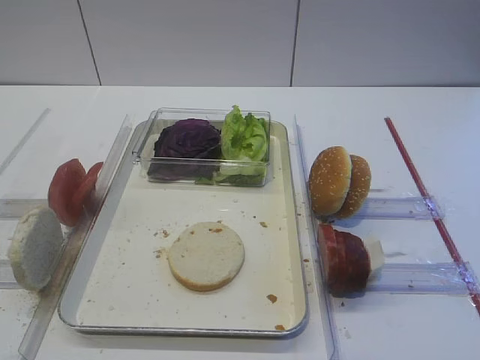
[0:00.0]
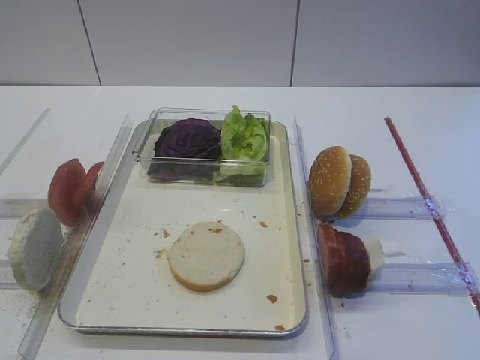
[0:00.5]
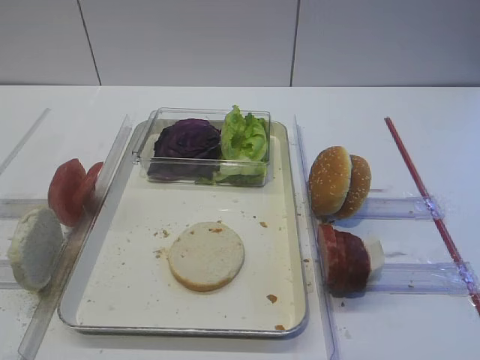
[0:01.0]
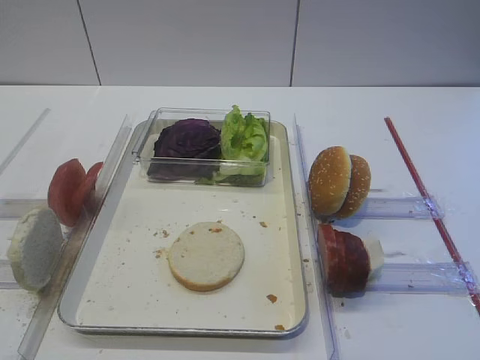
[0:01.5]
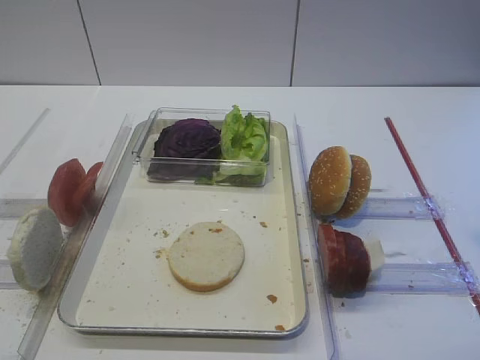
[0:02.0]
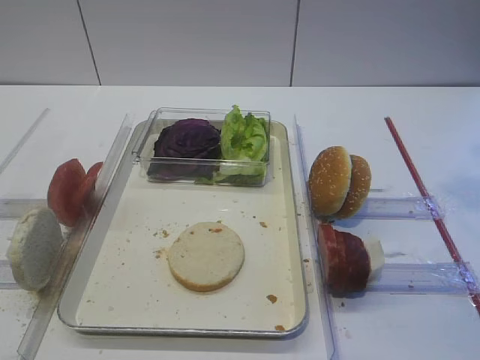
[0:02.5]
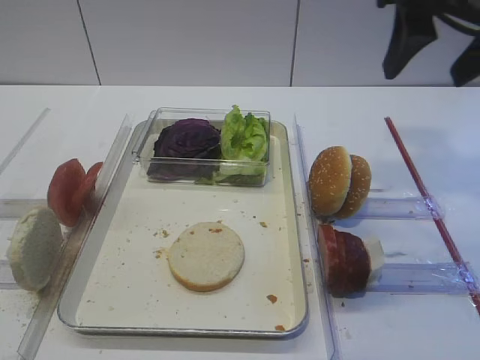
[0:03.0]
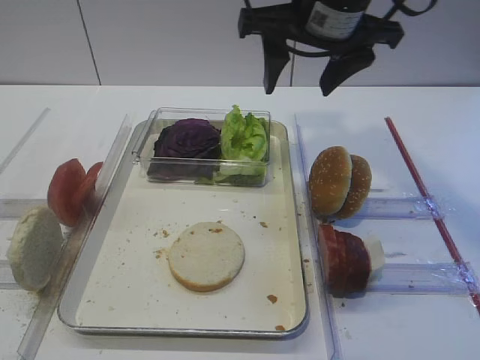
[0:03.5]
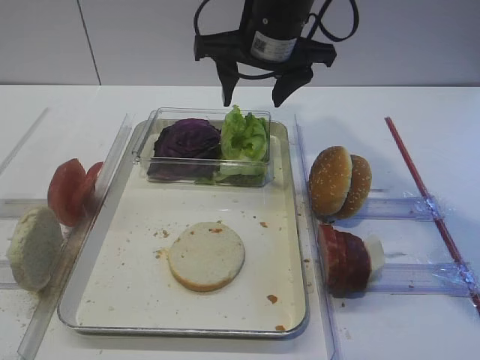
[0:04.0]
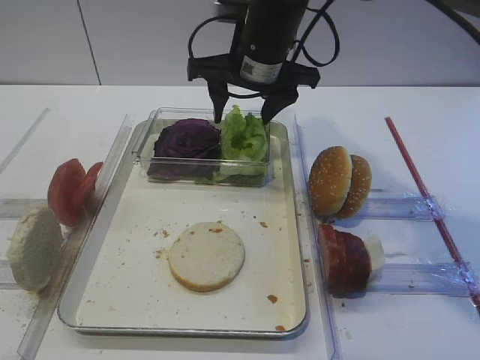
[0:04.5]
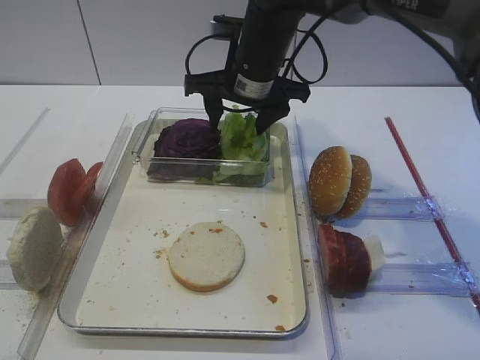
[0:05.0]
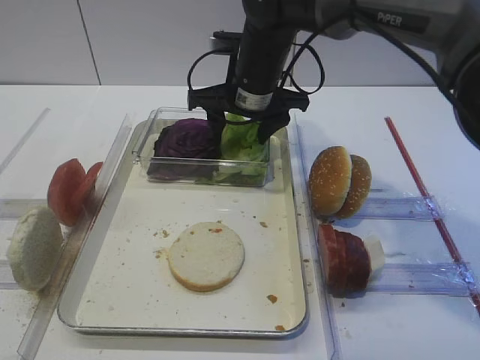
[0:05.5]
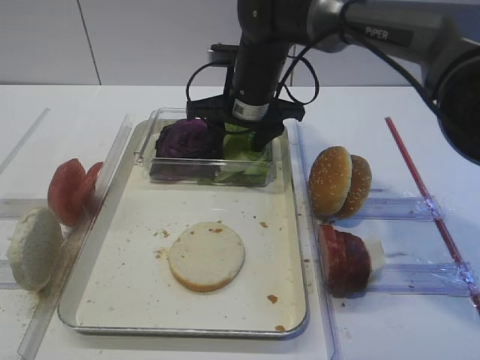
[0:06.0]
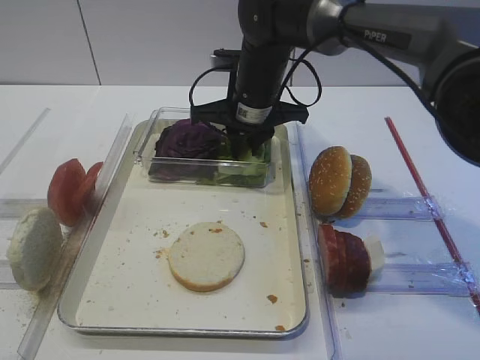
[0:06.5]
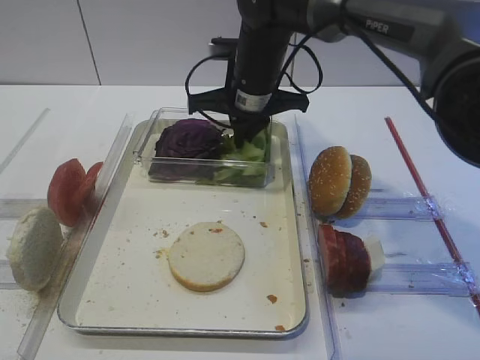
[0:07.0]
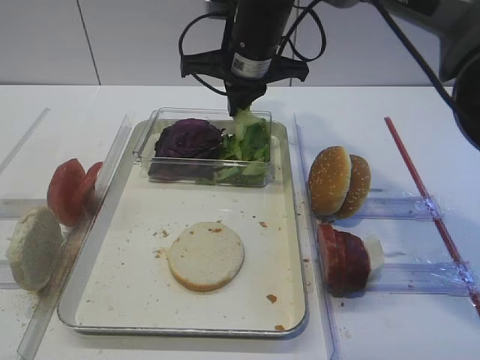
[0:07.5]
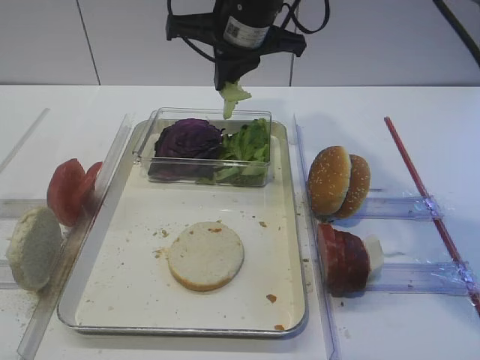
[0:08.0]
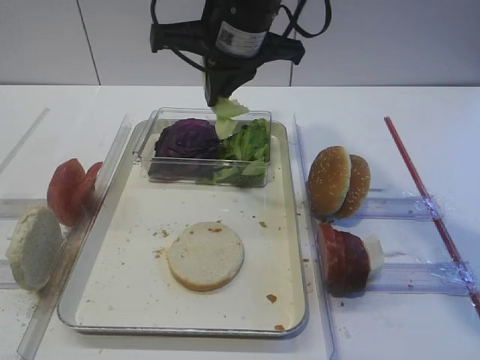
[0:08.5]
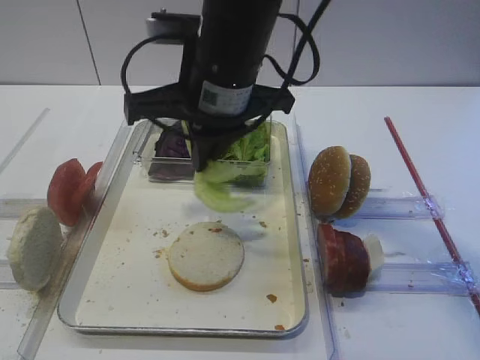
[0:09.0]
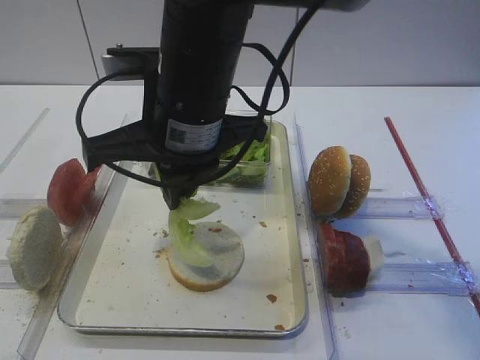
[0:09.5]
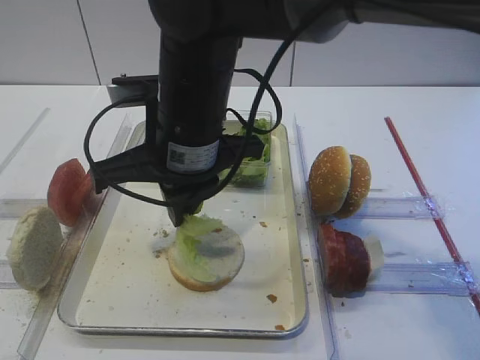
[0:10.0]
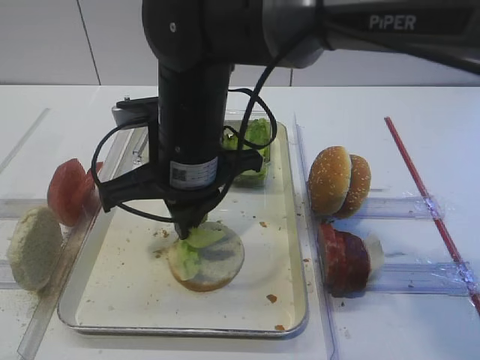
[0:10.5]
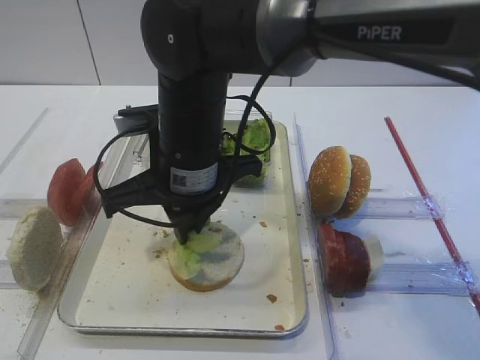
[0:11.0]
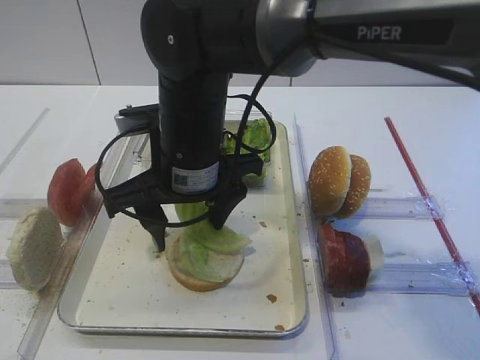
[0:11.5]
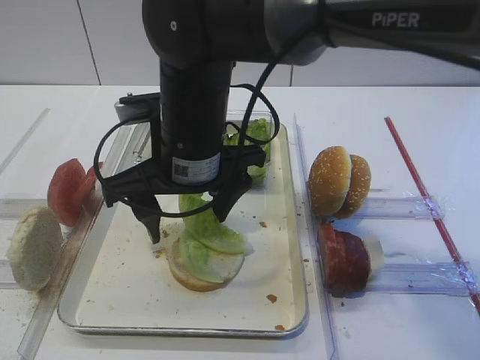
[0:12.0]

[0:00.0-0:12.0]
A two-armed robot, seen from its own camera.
Step, 0:00.0 to 0:07.5: Pick up the lettuce leaf with the right gripper.
0:02.0 to 0:04.0: The right gripper moves forward and to the left, about 35 cm.
0:04.0 to 0:06.0: The right gripper shifts roughly 10 cm downward.
0:06.0 to 0:08.0: The right gripper goes roughly 10 cm upward, and closes up.
0:08.0 to 0:10.0: The right gripper moves backward and to the left, roughly 15 cm.
0:10.0 to 0:12.0: The right gripper opens its fingers.

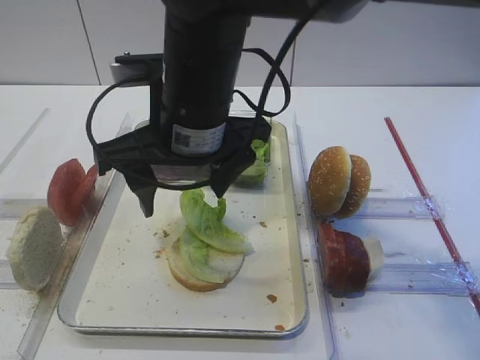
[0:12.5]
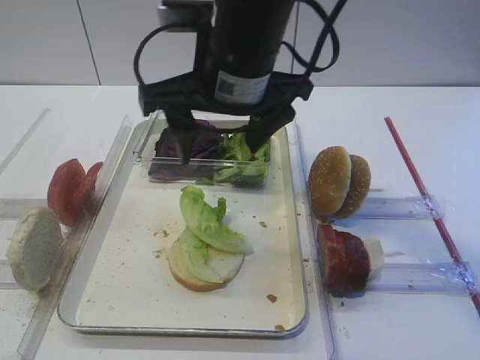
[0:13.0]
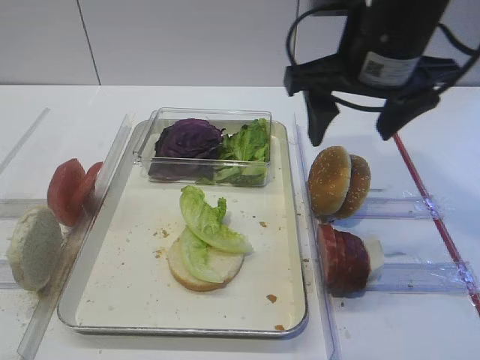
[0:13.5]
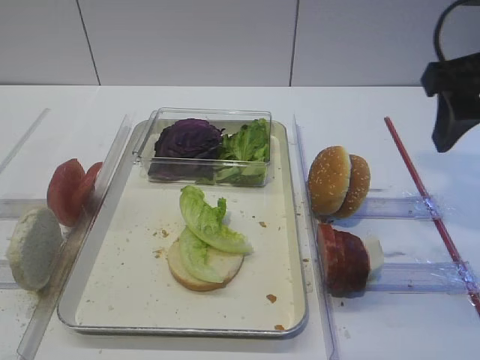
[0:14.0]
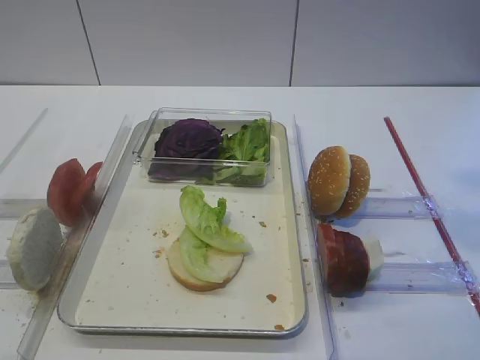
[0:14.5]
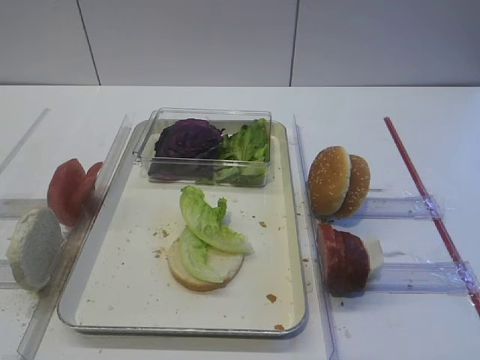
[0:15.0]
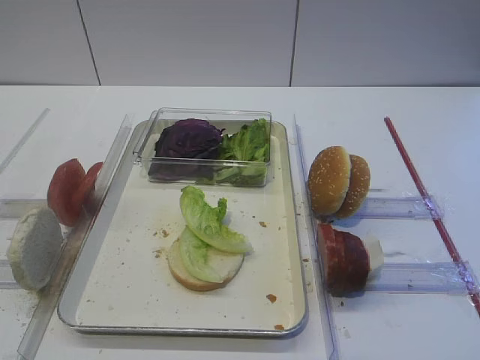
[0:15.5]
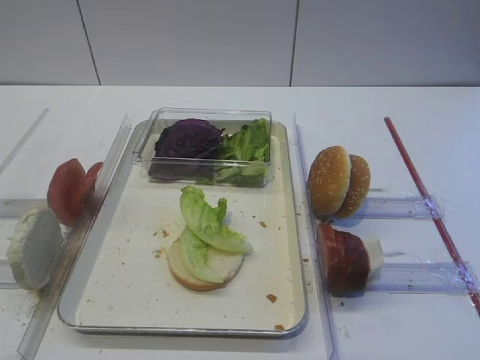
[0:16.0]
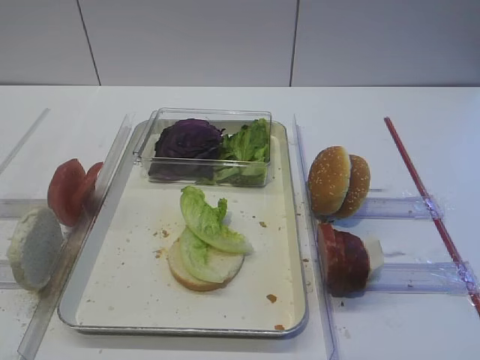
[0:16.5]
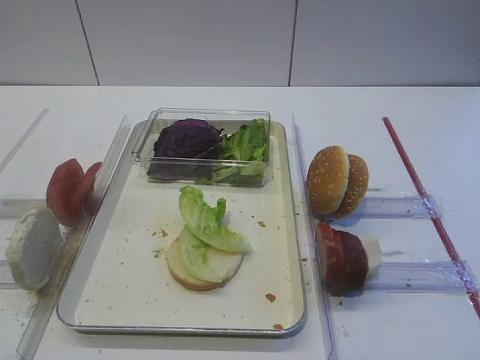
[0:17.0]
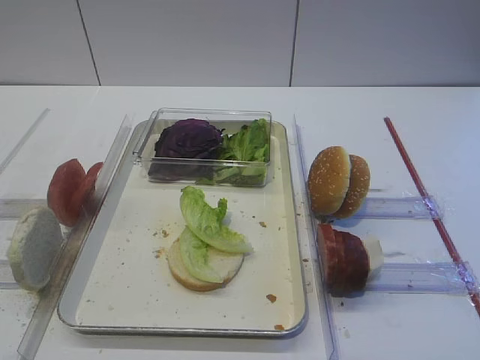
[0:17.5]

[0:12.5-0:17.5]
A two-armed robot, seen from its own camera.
0:12.5 to 0:15.0: The right gripper goes about 35 cm to the right and backward.

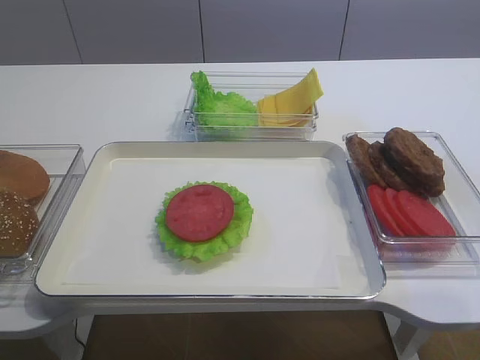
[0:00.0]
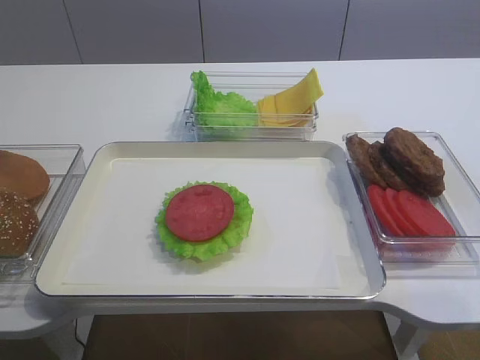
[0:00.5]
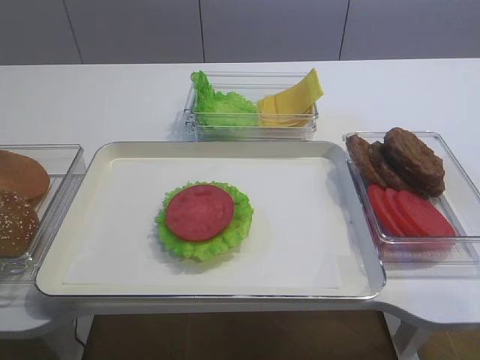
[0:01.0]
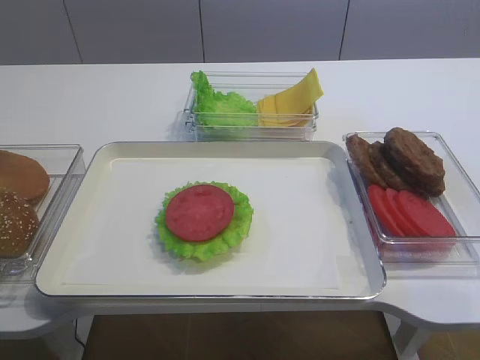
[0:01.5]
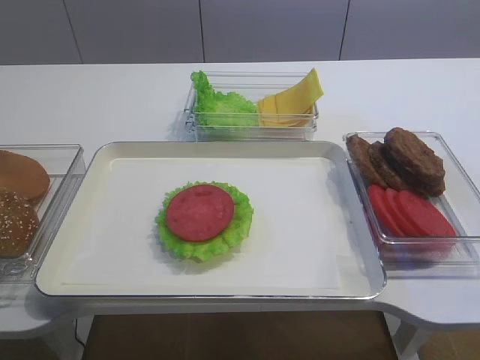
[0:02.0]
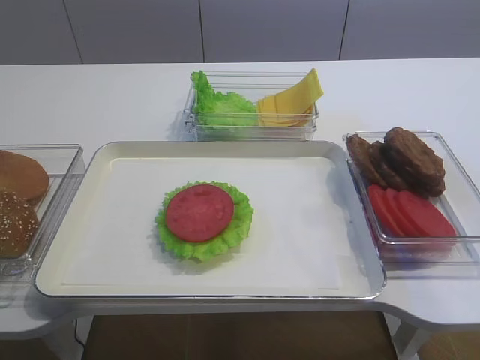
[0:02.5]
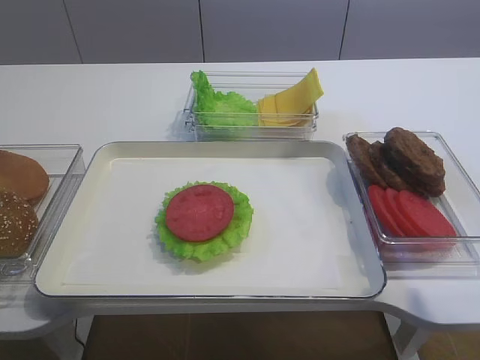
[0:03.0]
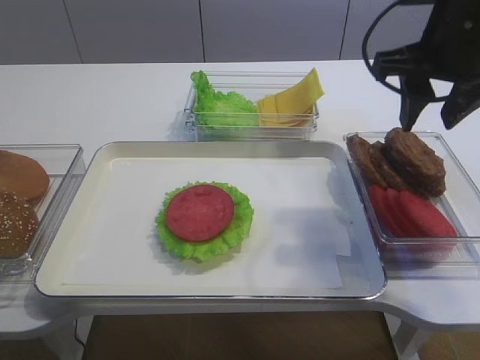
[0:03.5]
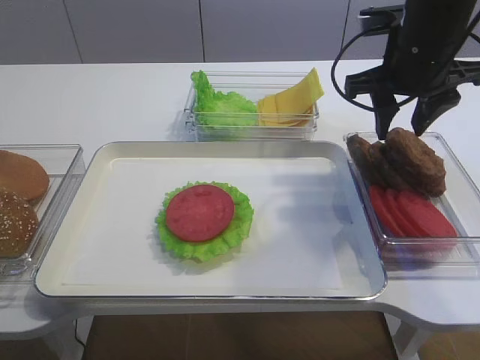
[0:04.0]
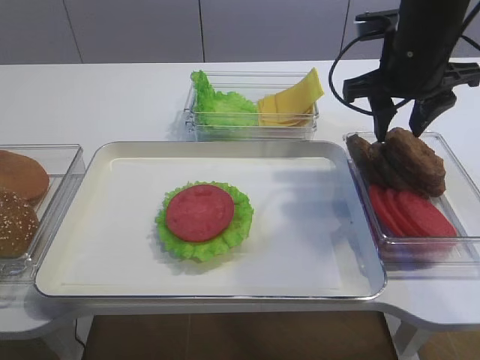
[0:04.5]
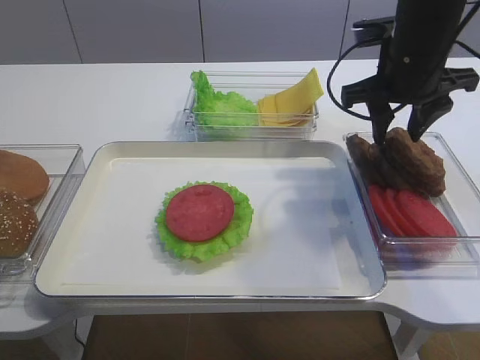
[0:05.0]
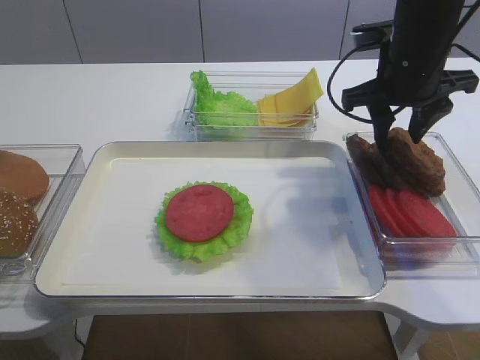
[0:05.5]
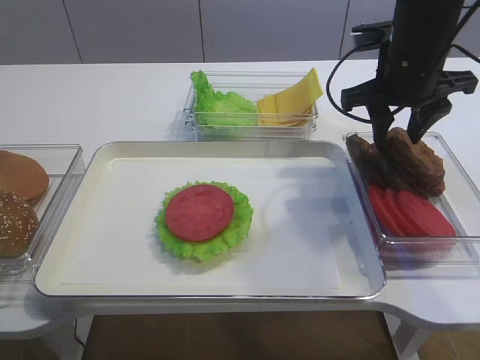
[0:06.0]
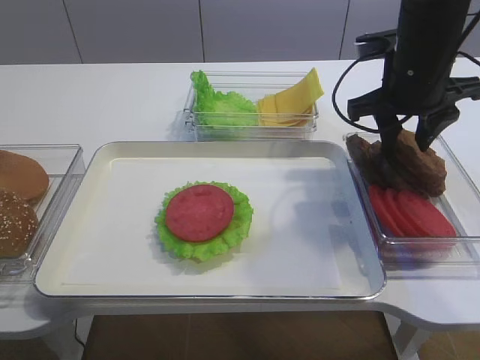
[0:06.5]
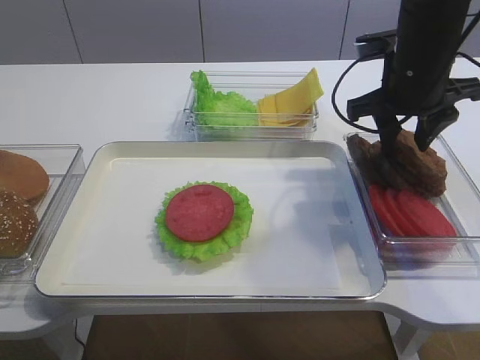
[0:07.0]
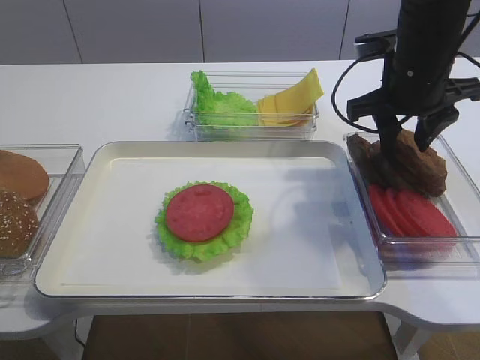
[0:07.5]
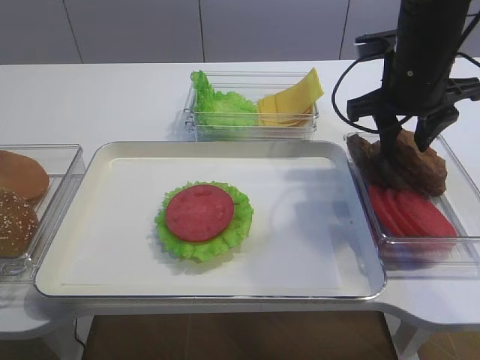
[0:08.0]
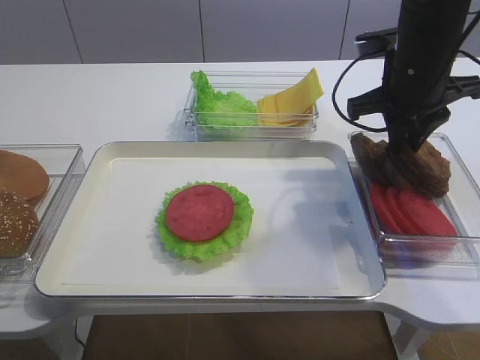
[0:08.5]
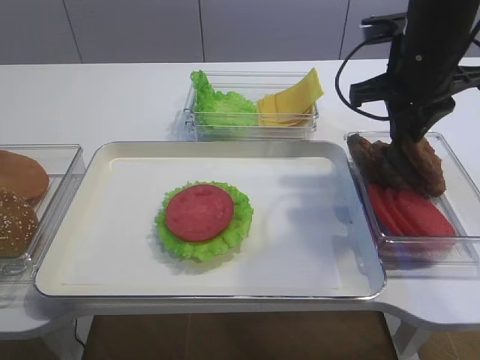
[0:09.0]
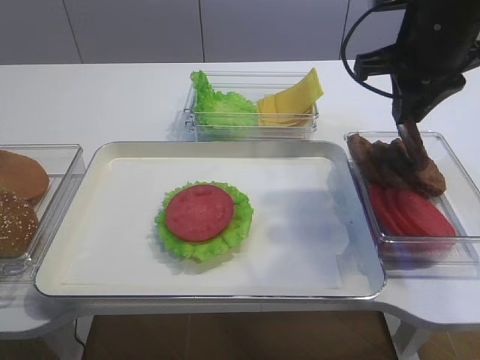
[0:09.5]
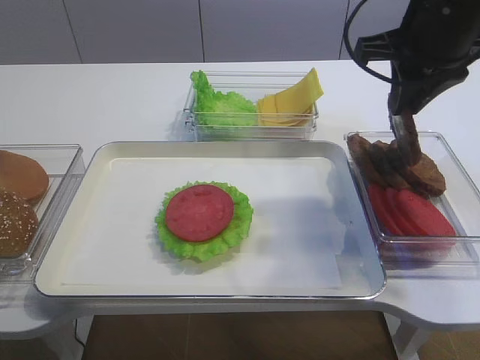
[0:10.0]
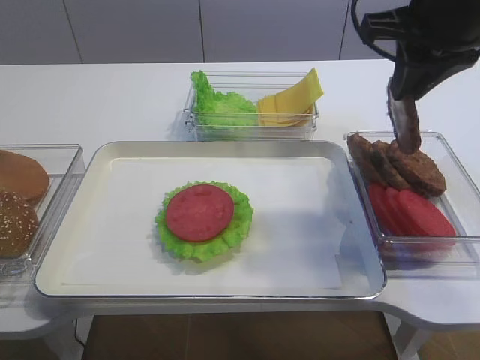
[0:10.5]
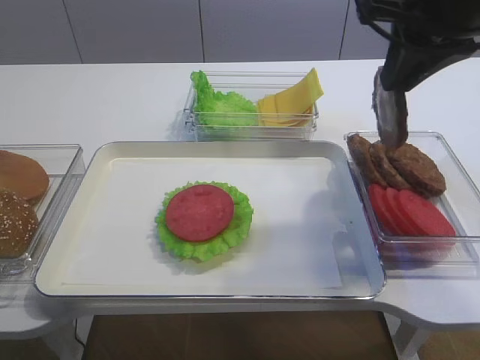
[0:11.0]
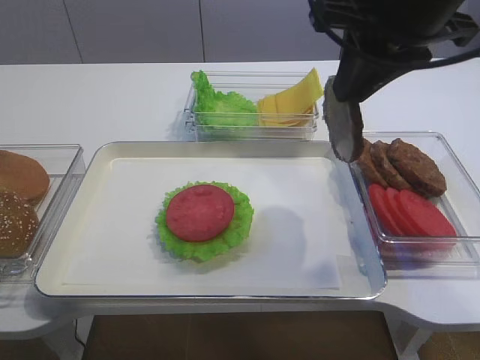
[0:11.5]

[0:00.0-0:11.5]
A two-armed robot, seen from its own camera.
Step, 0:00.0 to 0:09.5: Pick up the cutlet with the right gripper.
0:02.0 to 0:04.0: The right gripper heads forward, covering approximately 30 cm.
0:04.0 to 0:06.0: There are only small adjustments of the grippers.
0:06.0 to 0:07.5: Both grippers stay put.
0:07.5 to 0:09.5: The right gripper travels upward by roughly 5 cm, and closes.
0:09.5 to 0:11.5: The right gripper shifts about 10 cm upward and backward.
